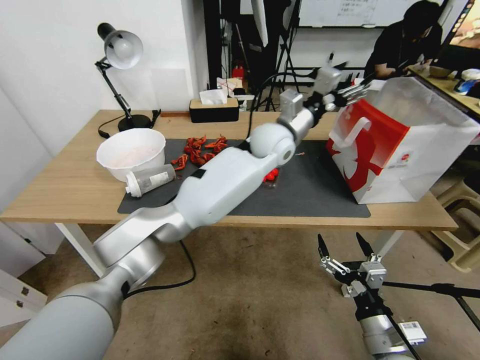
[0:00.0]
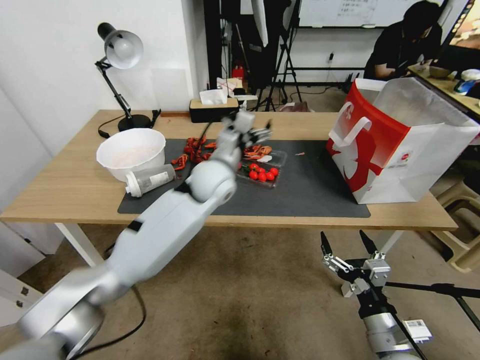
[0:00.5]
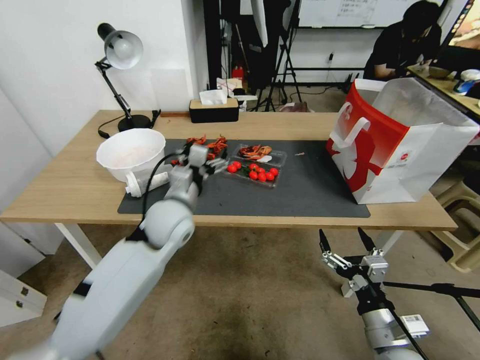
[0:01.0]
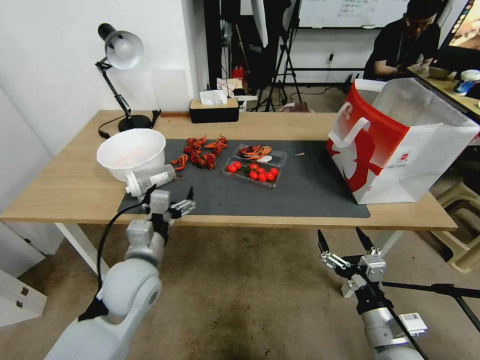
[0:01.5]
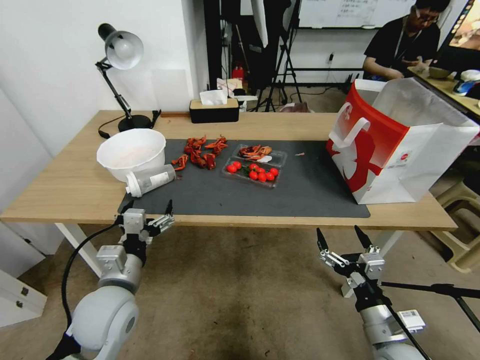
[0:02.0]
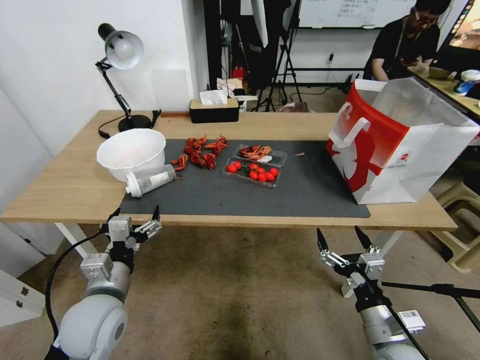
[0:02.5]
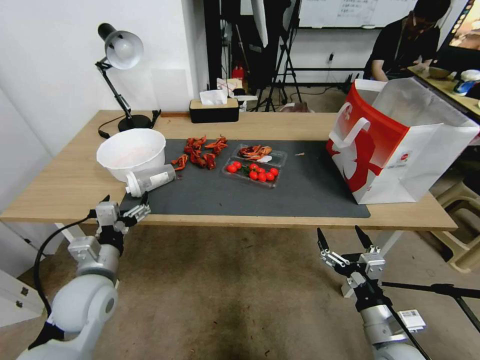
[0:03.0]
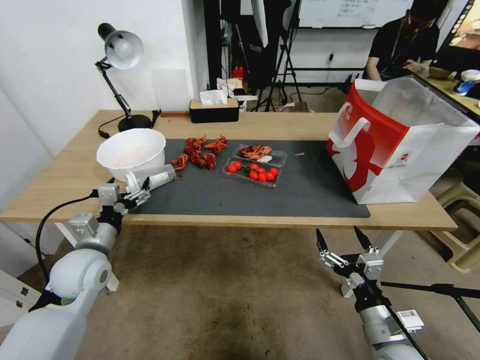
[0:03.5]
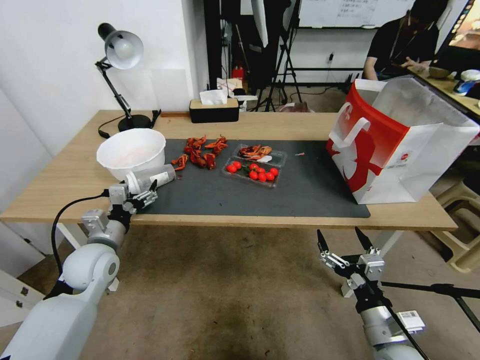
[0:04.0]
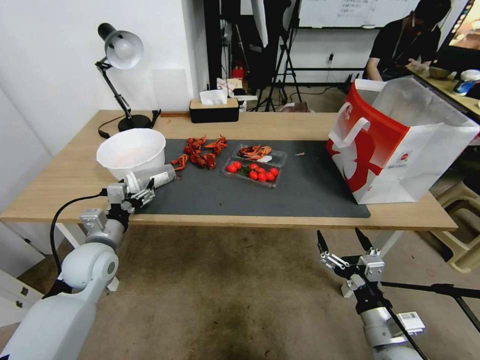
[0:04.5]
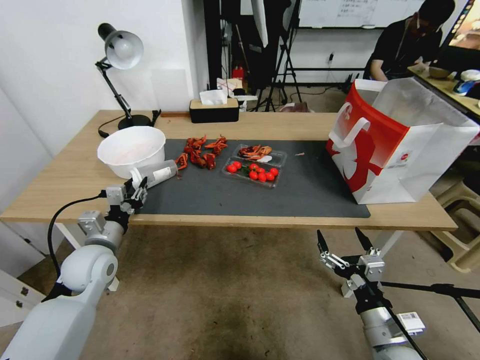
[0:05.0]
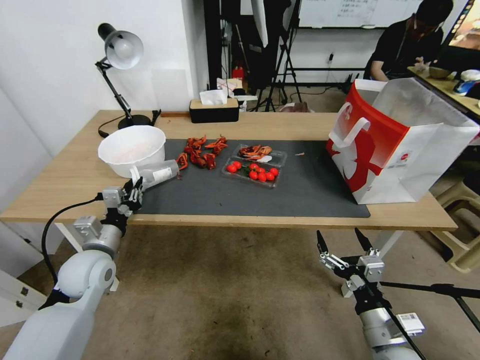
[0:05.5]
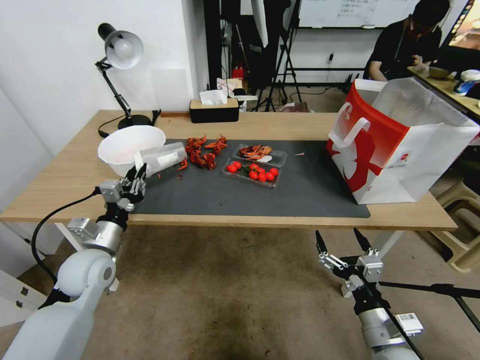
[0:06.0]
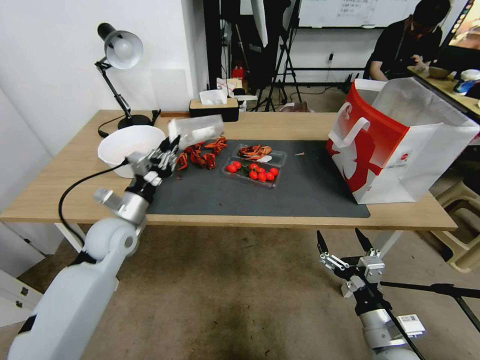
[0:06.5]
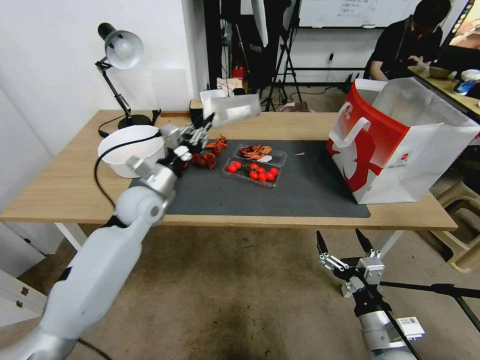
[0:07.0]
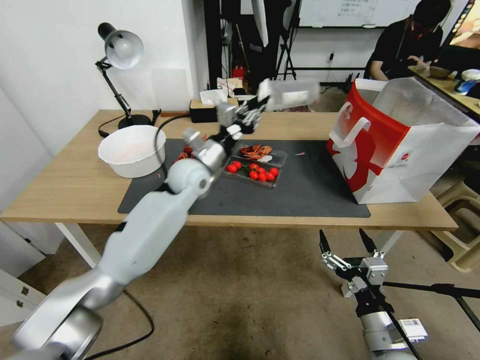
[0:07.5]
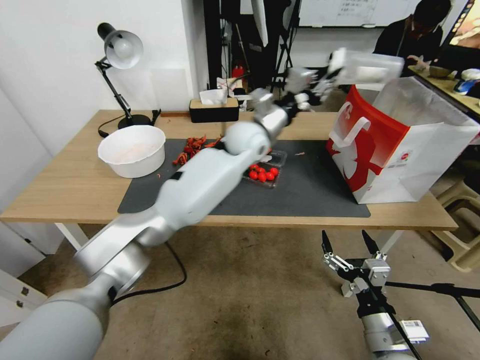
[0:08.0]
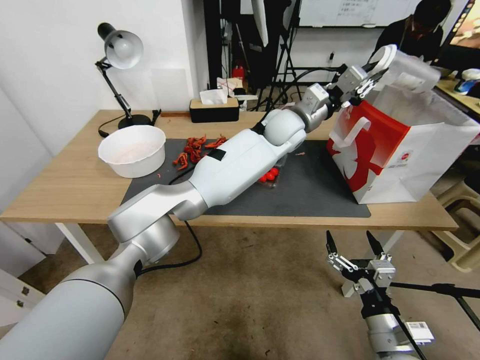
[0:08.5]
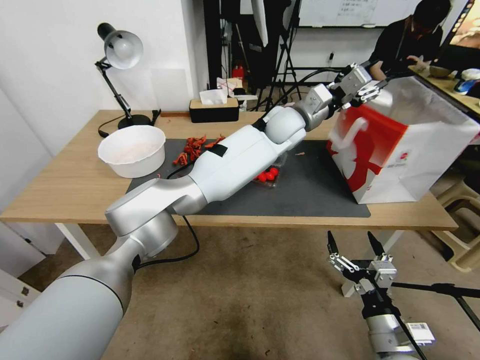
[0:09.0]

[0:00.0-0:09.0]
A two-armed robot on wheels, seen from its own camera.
0:00.0 to 0:02.0: The left gripper is displaced backward, to the left and downward by approximately 40 cm.
0:02.0 to 0:04.5: The left gripper heads forward and to the left, covering roughly 15 cm.
0:04.5 to 0:07.0: The left gripper closes up.
0:07.0 to 0:09.0: The left gripper moves to the right, forward and upward, about 50 cm.

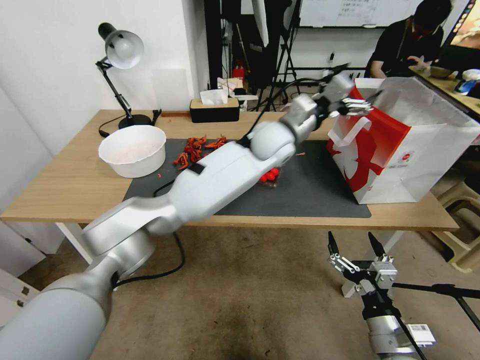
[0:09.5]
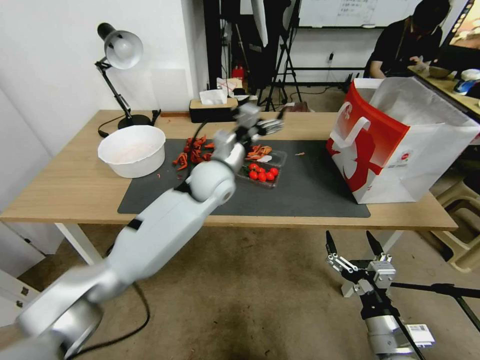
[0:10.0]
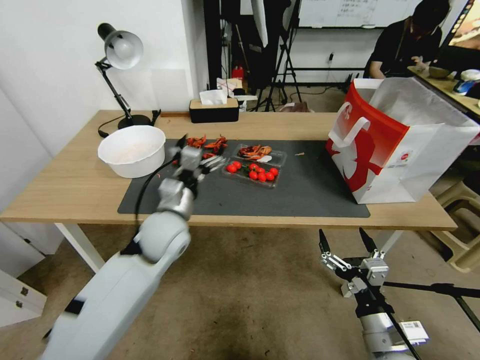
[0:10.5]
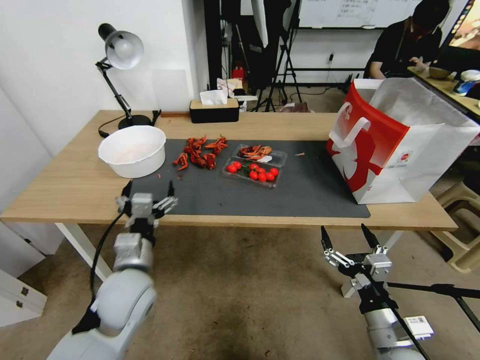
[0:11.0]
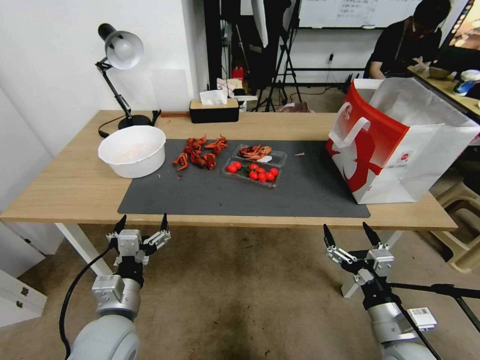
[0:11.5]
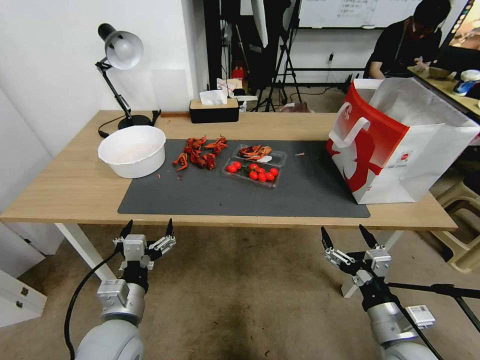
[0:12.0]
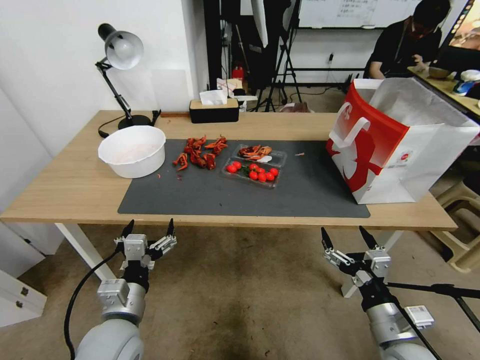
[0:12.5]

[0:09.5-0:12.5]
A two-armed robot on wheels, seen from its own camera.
0:09.5 to 0:11.0: The left gripper travels to the left, backward and downward by roughly 40 cm.
0:11.0 to 0:12.5: The left gripper heads backward, covering roughly 10 cm.
